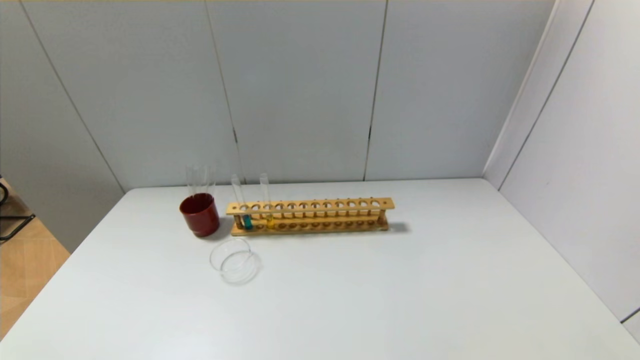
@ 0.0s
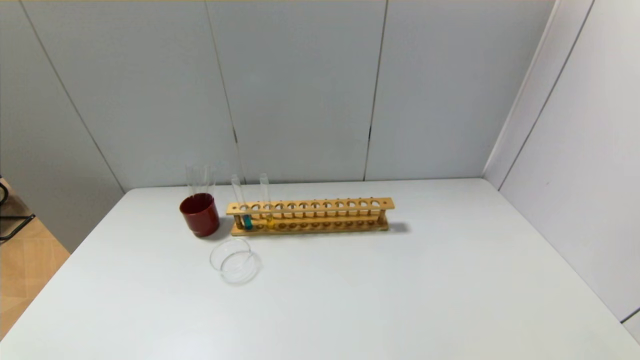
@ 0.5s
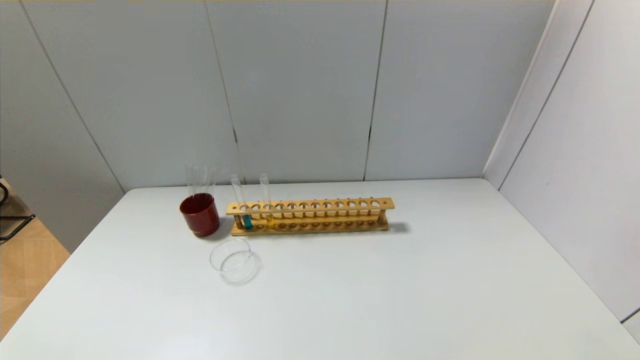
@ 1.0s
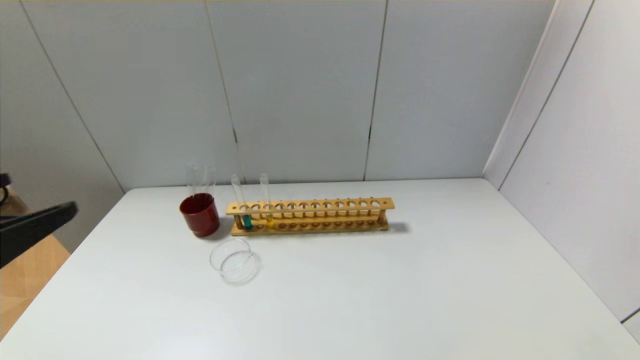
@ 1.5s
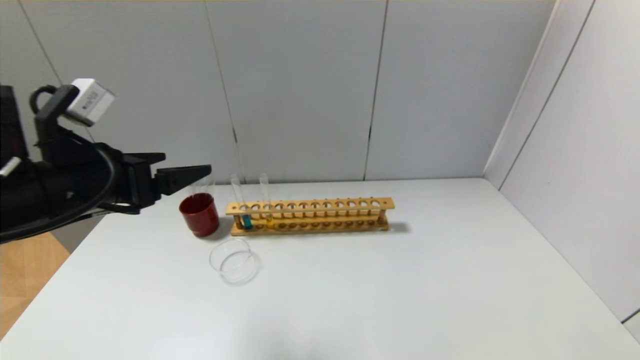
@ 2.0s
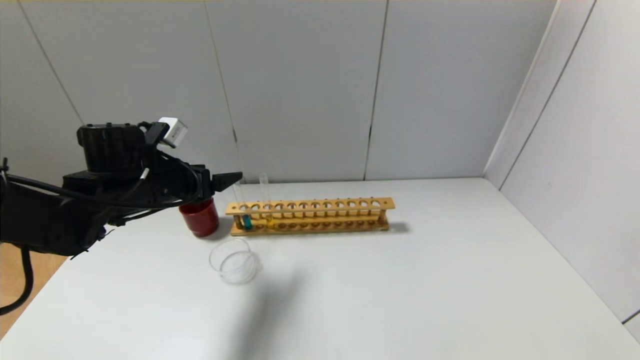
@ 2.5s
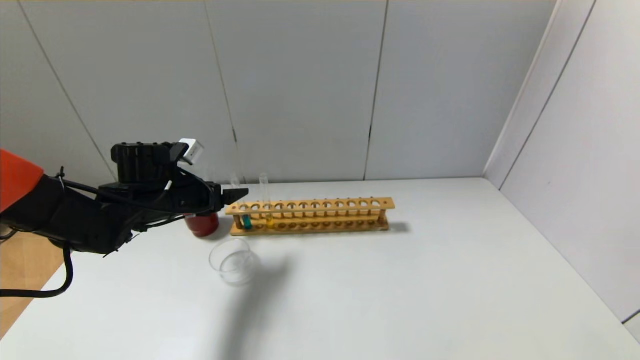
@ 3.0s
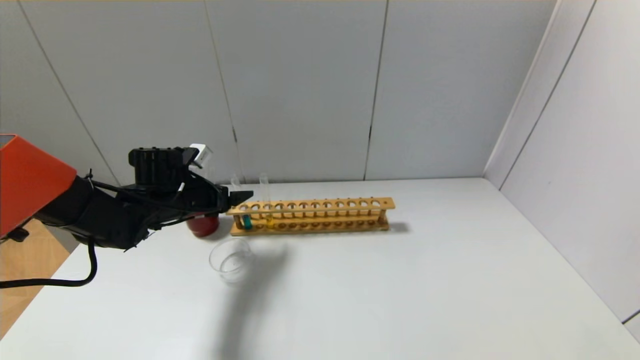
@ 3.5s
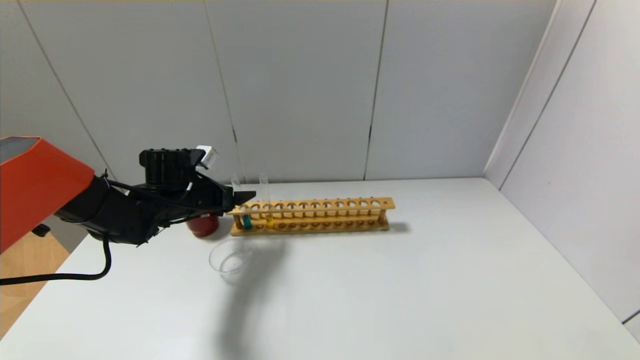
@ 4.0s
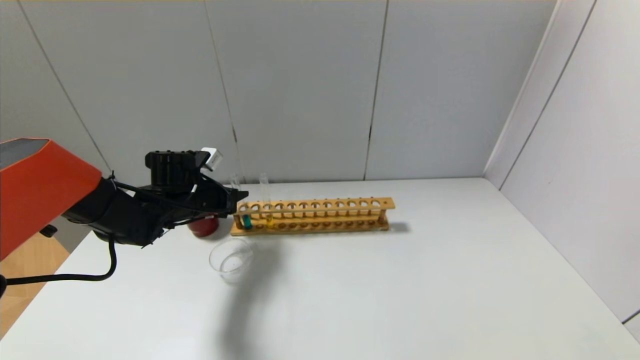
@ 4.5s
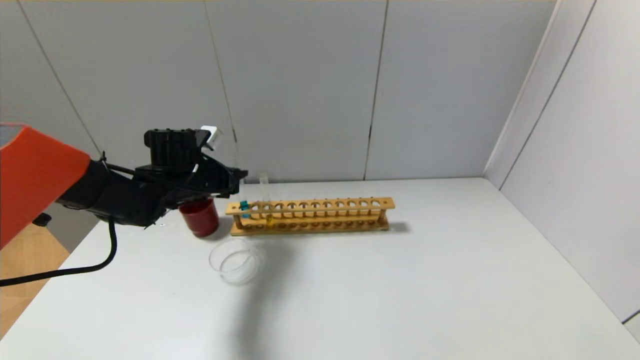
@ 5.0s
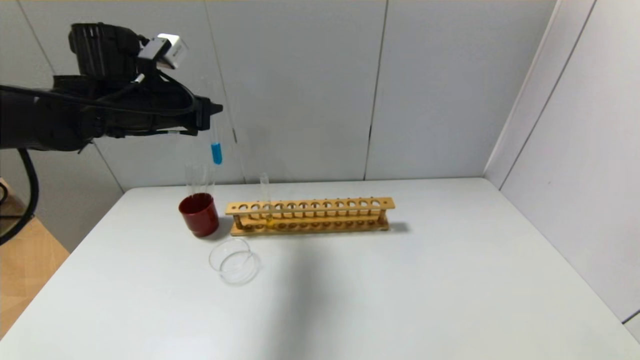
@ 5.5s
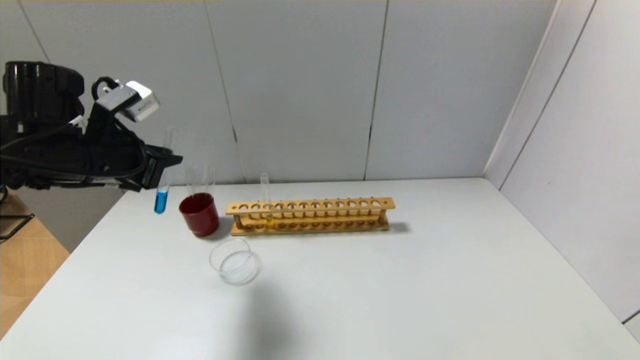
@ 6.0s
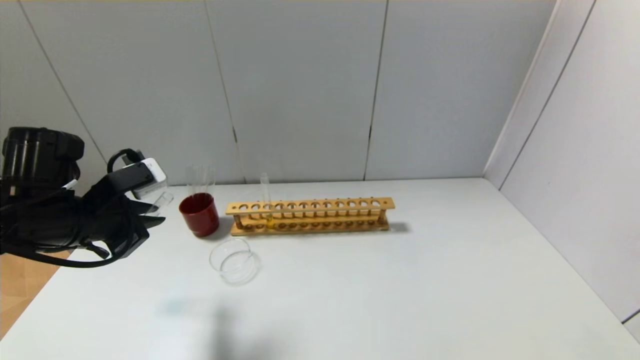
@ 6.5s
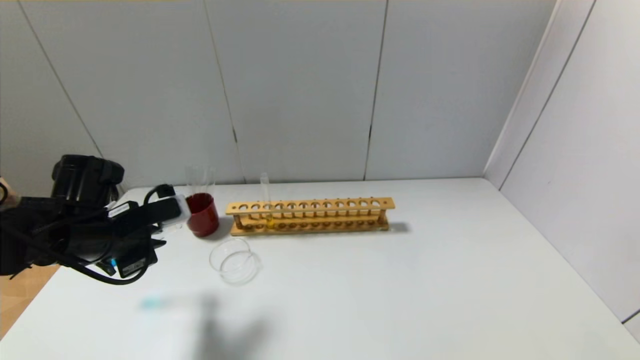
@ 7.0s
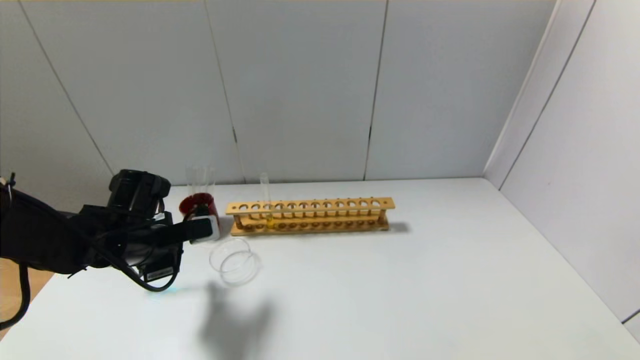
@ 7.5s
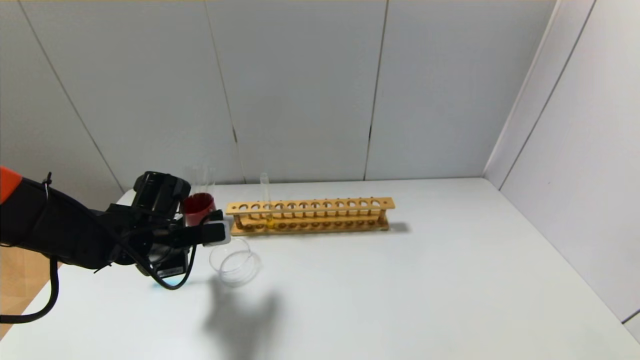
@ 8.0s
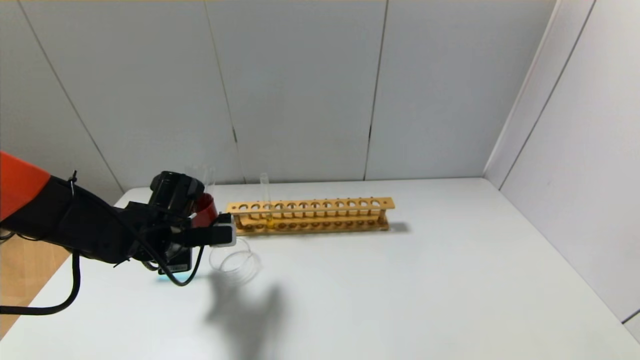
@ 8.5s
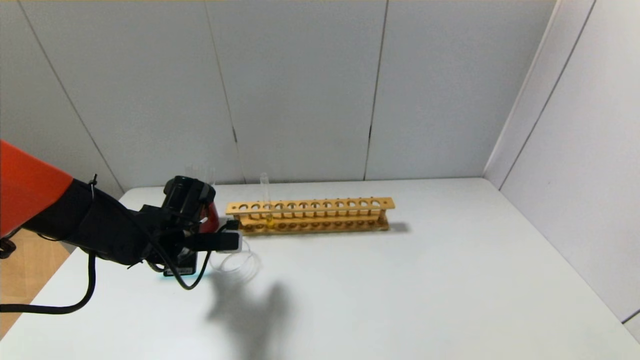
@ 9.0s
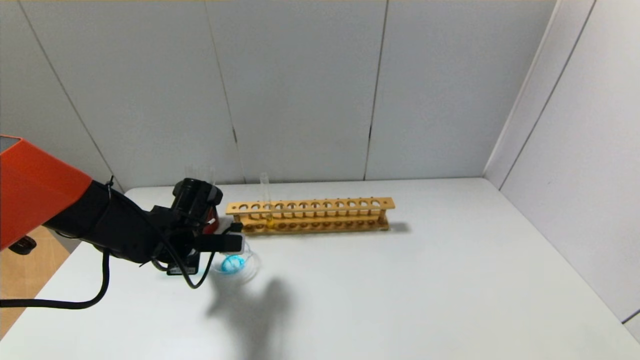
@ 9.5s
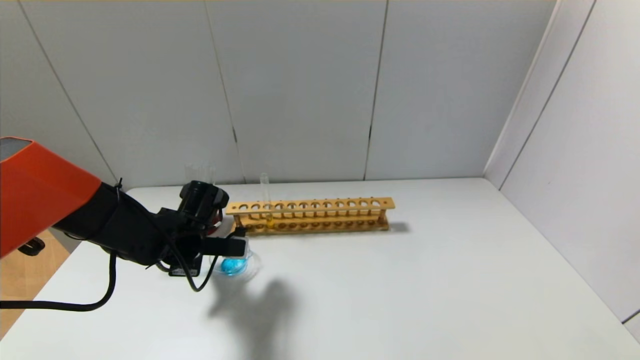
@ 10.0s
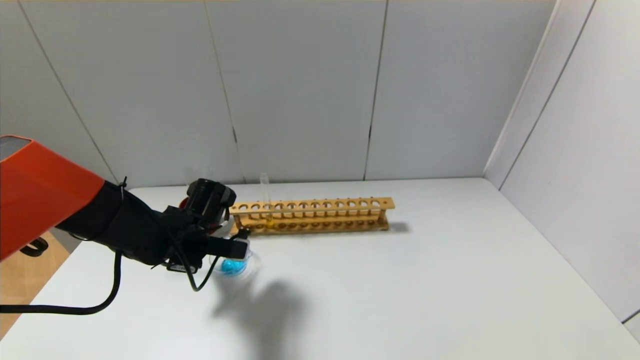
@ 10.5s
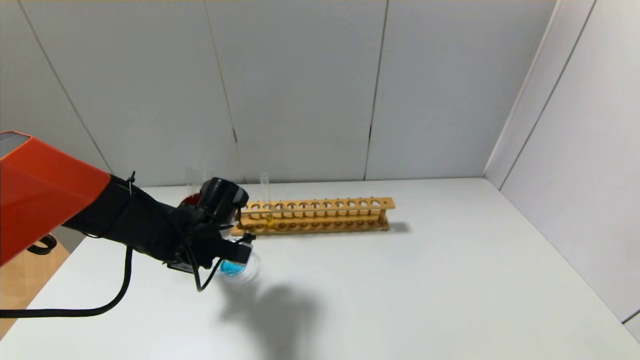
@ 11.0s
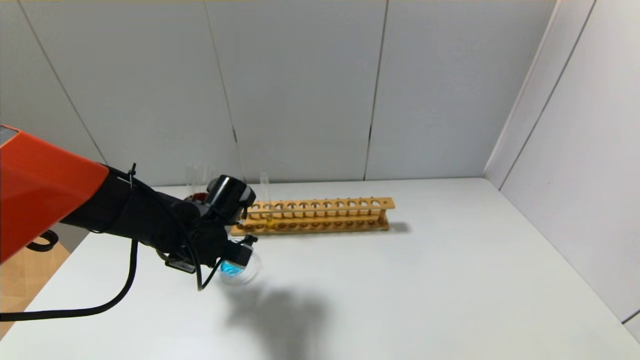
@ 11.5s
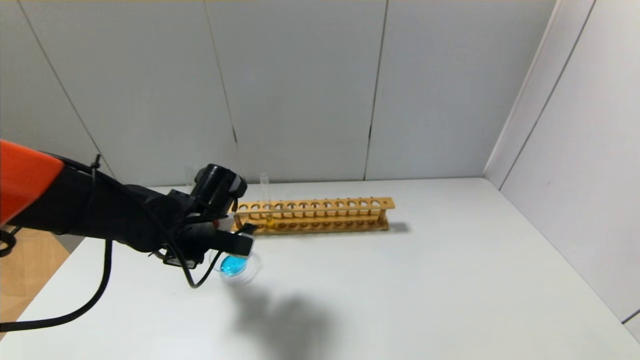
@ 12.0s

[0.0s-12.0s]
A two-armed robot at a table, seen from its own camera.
Step, 0.0s to 4.5s: Grasp the blue reagent with the left gripper.
Step, 5.0s to 11.5s: Pour the blue reagent into the graduated cylinder with the left gripper.
0.0s to 2.0s: The left gripper shifts roughly 30 cm forward and upward.
2.0s to 4.0s: The left gripper is displaced forward and downward by roughly 25 cm.
4.0s to 6.0s: The left gripper shifts about 20 cm upward and backward, and closes.
6.0s to 8.0s: The left gripper shifts roughly 15 cm downward.
10.0s to 12.0s: The left gripper moves upward, about 5 cm.

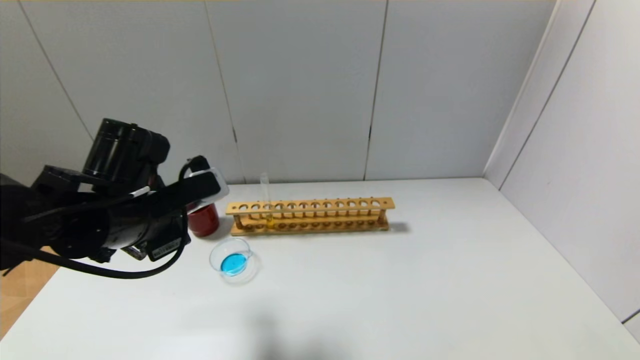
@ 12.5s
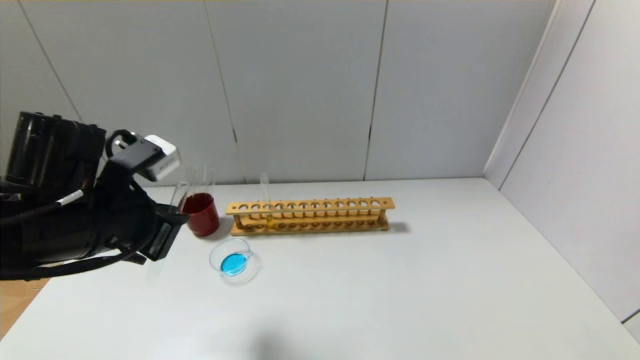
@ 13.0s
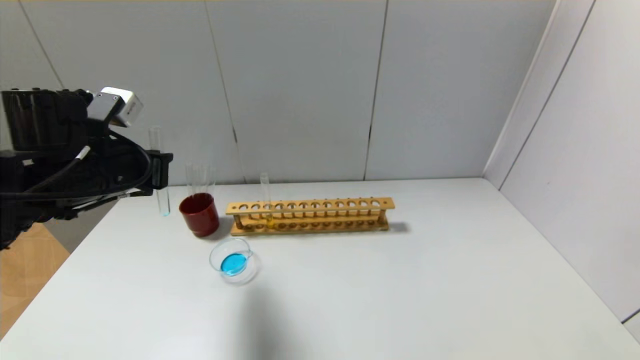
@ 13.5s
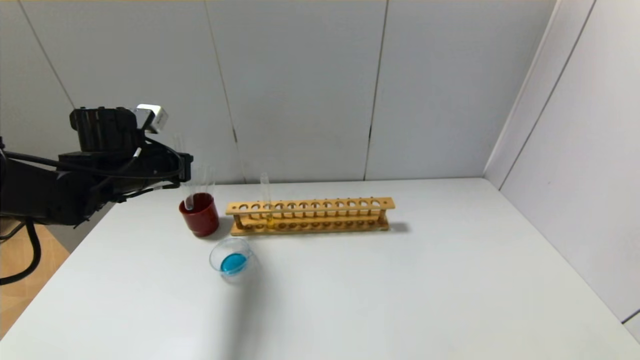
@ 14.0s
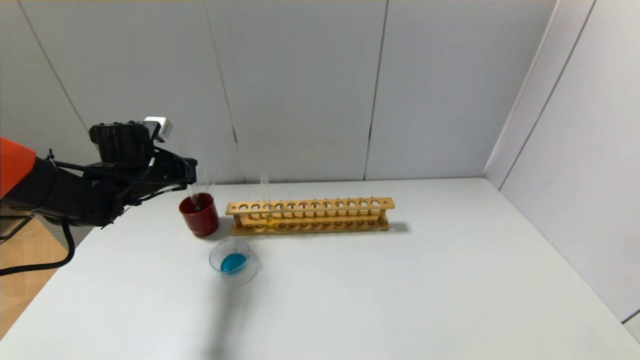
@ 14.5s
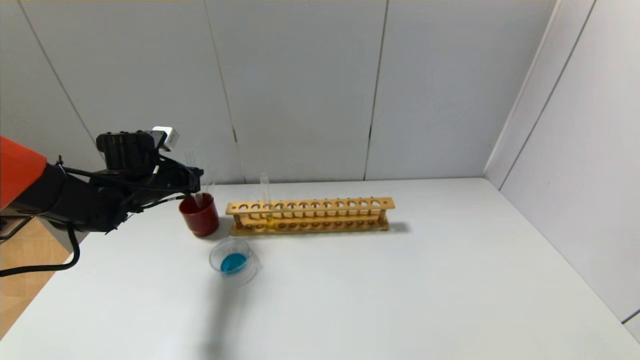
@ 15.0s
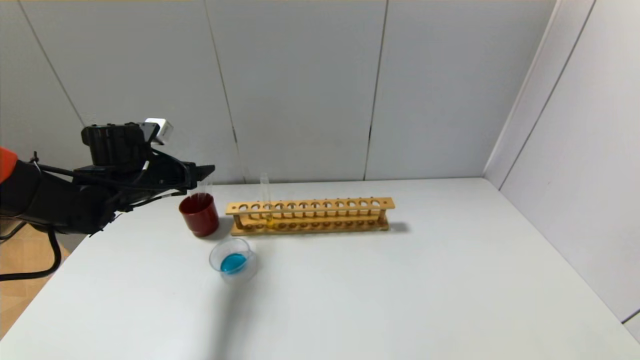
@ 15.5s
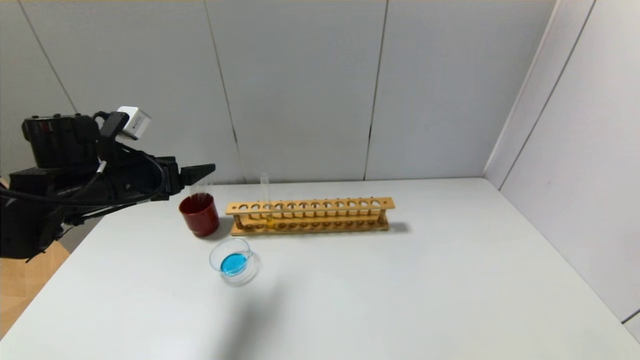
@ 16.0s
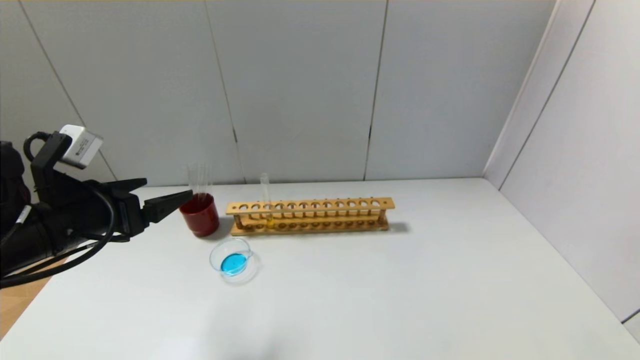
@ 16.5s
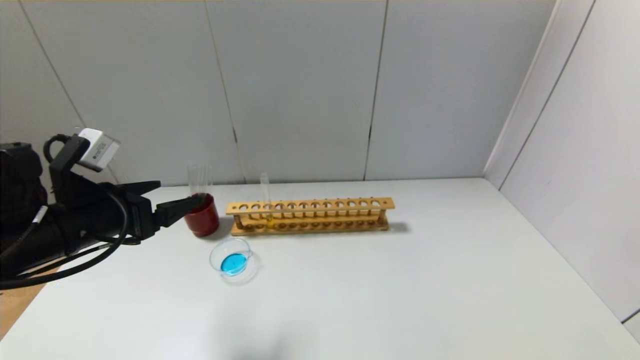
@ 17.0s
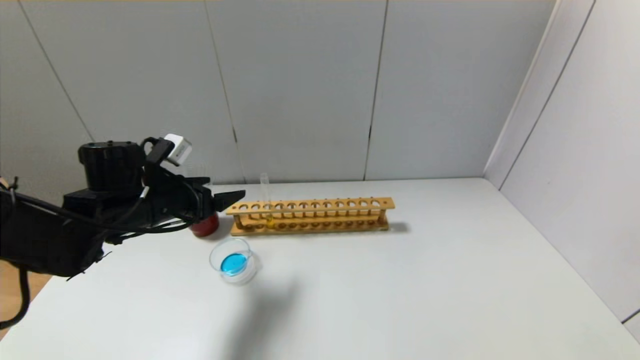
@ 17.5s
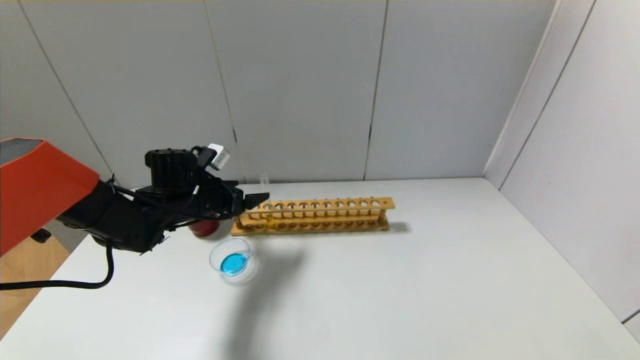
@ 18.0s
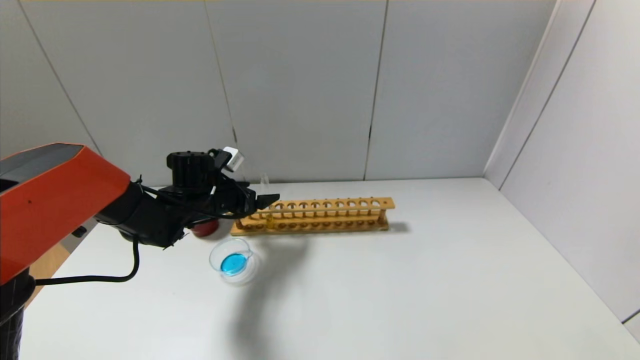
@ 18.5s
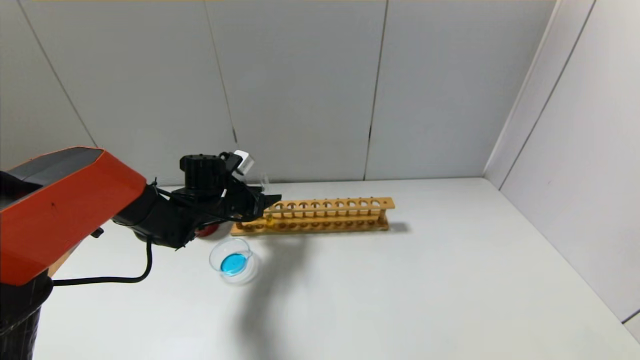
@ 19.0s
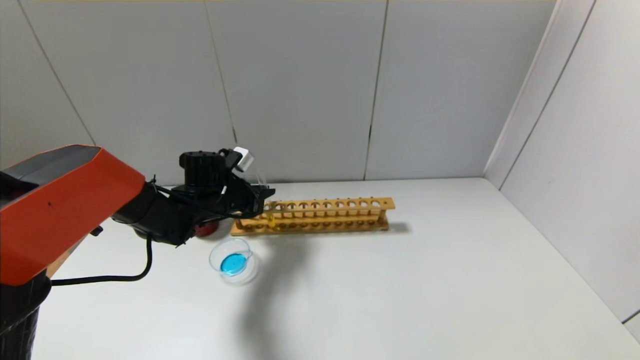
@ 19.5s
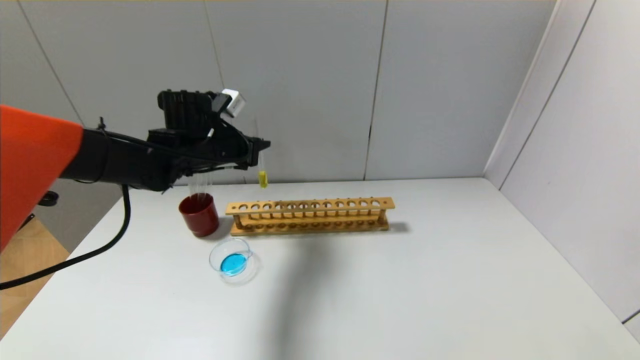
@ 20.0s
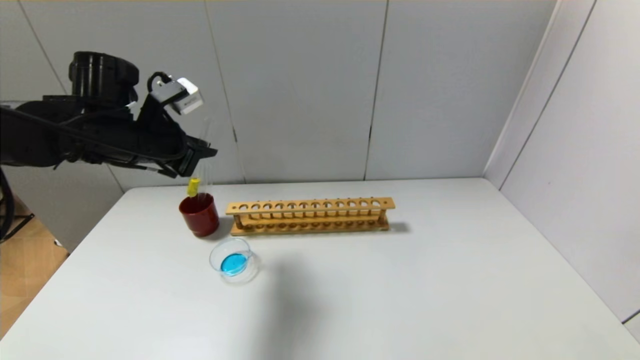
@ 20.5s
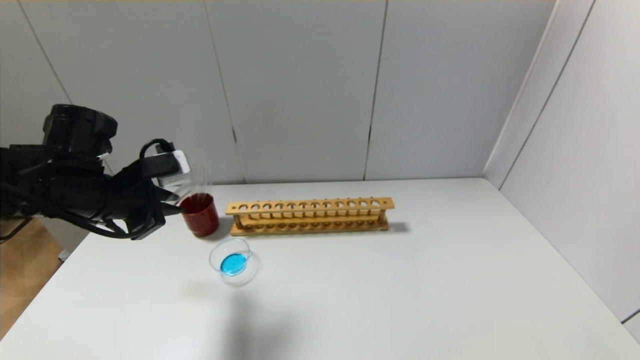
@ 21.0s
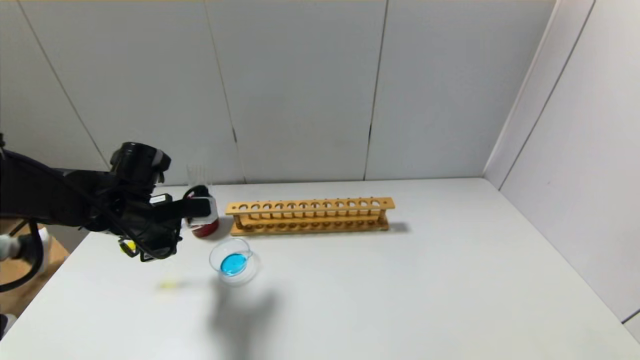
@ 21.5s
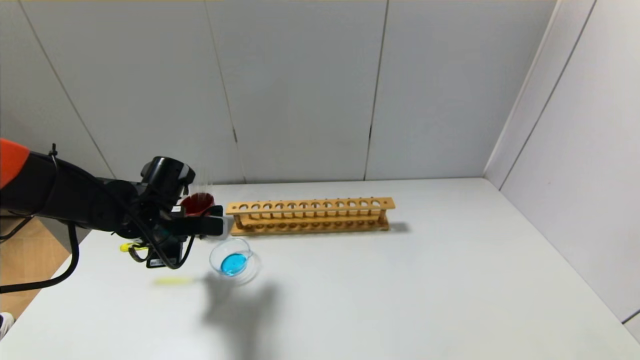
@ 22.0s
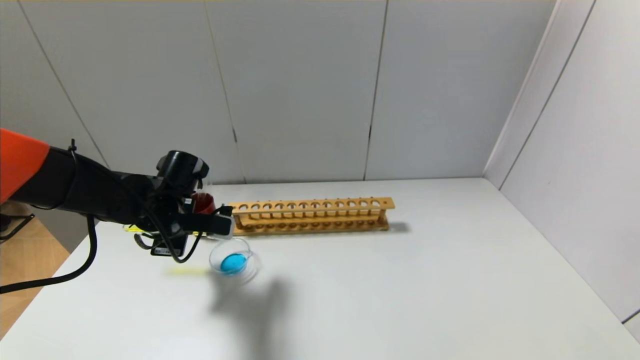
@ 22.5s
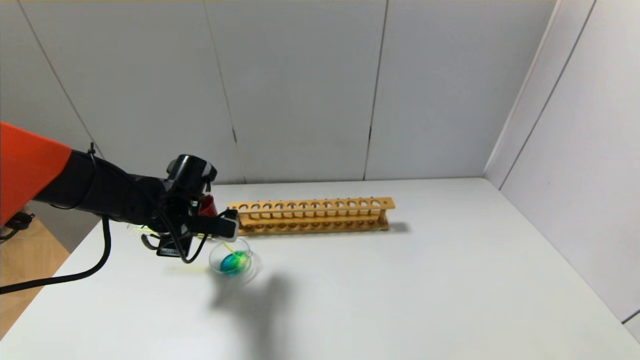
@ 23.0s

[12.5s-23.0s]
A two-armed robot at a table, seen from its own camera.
Step, 12.5s to 15.0s: Place the test tube into the brown cup with the left gripper.
Step, 15.5s to 19.0s: Grasp the yellow reagent with the left gripper.
12.5s to 14.5s: The left gripper goes roughly 20 cm forward and to the left.
14.5s to 16.5s: The left gripper shifts some 20 cm backward, and opens up.
16.5s to 19.0s: The left gripper moves forward, downward and to the right, about 25 cm, and closes its fingers.
19.0s to 21.0s: The left gripper shifts about 20 cm backward, upward and to the left, and closes up.
21.0s to 23.0s: The left gripper heads downward, forward and to the right, covering approximately 10 cm.
